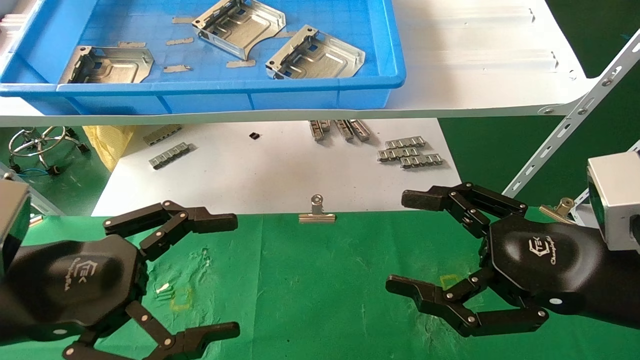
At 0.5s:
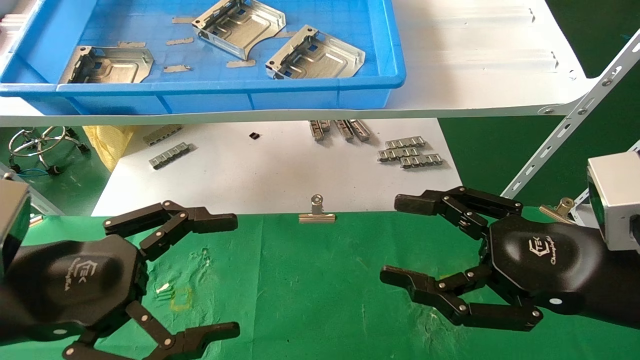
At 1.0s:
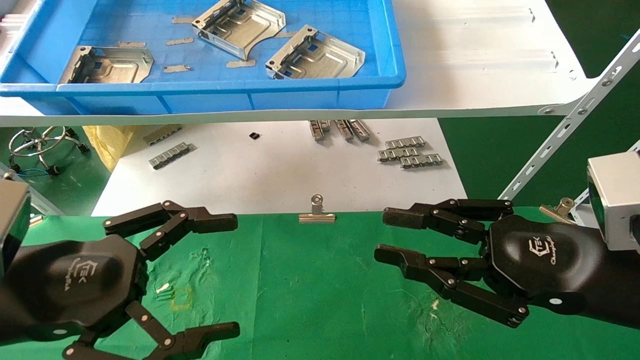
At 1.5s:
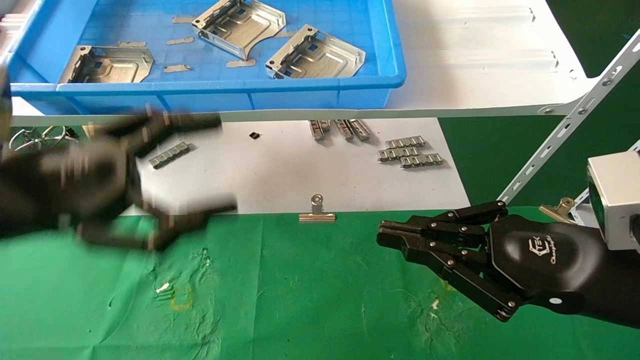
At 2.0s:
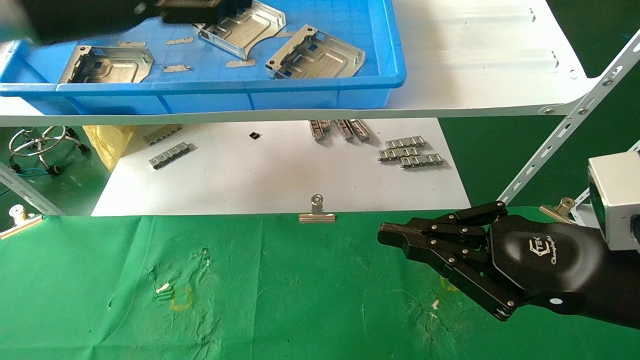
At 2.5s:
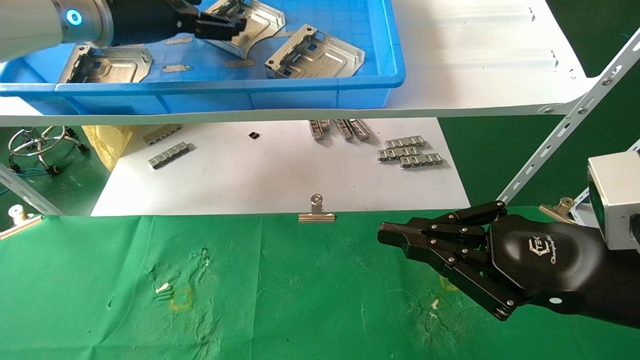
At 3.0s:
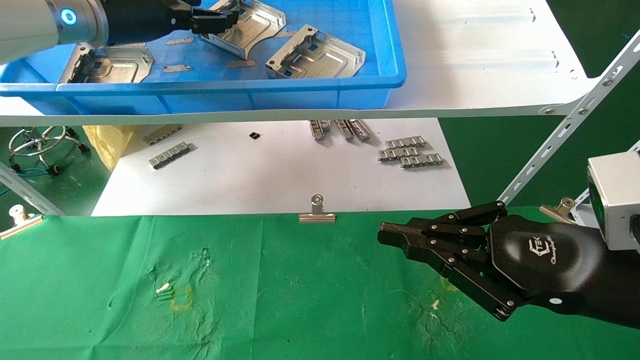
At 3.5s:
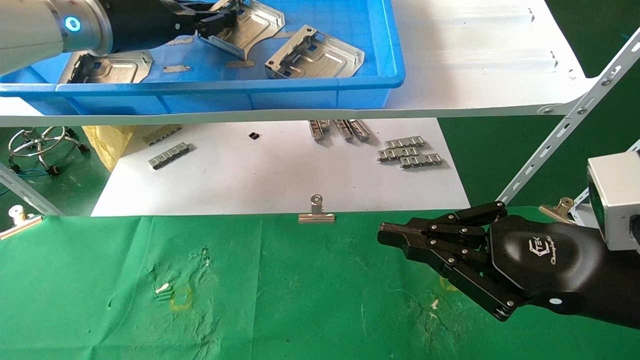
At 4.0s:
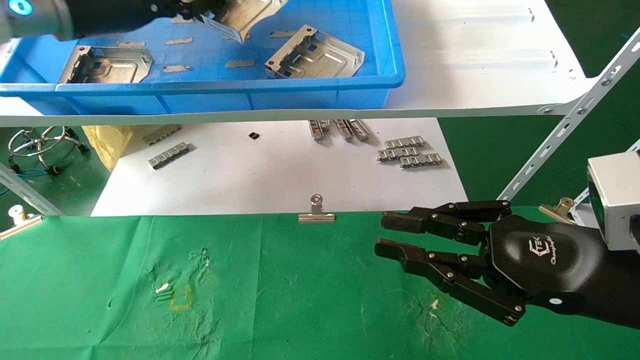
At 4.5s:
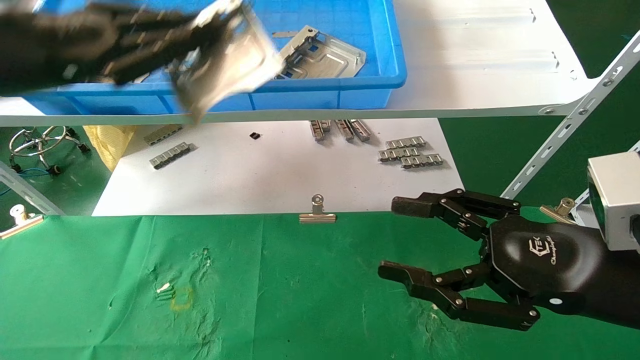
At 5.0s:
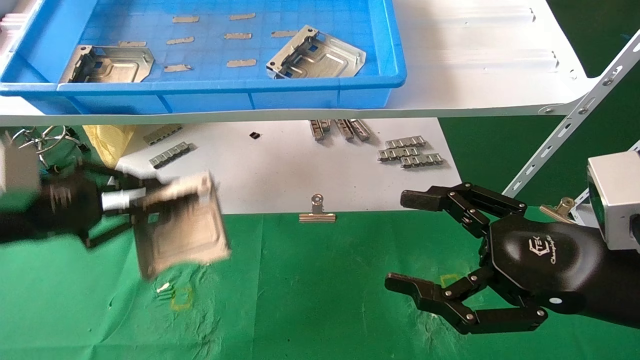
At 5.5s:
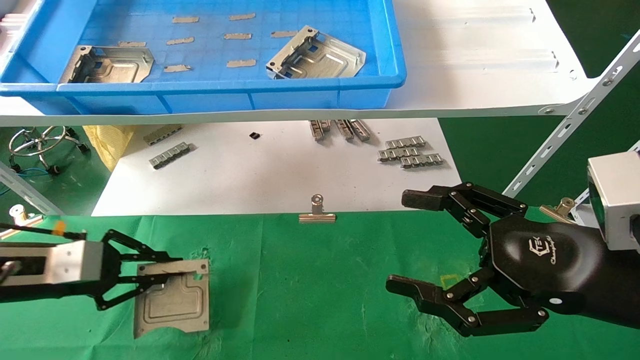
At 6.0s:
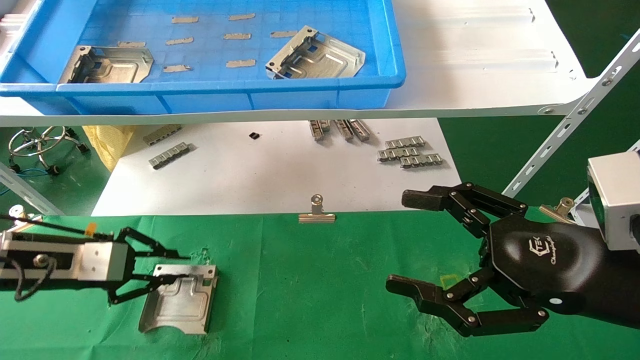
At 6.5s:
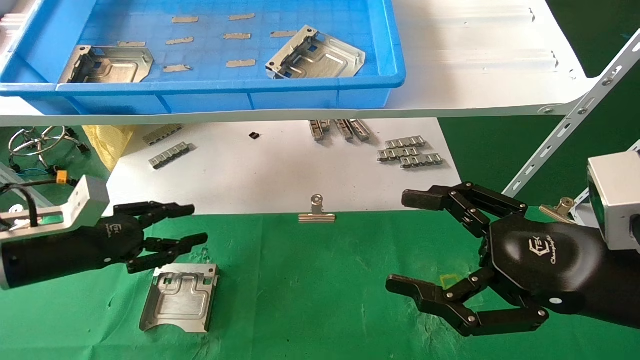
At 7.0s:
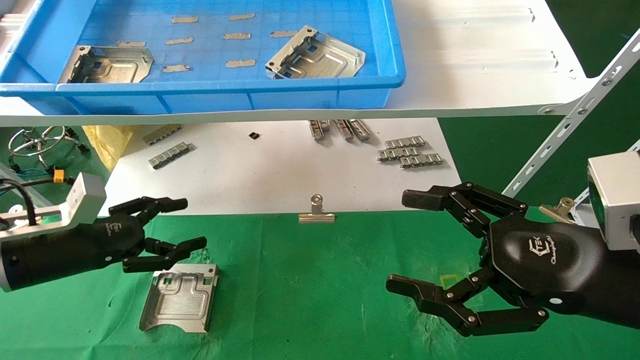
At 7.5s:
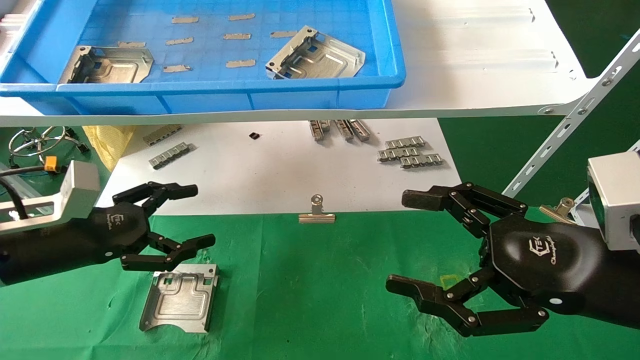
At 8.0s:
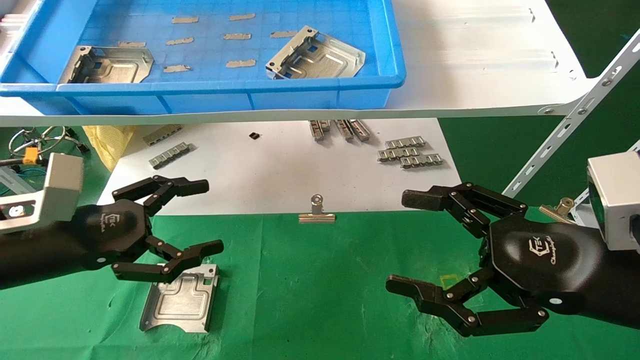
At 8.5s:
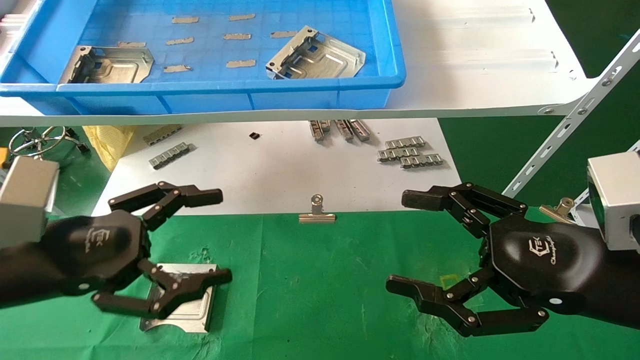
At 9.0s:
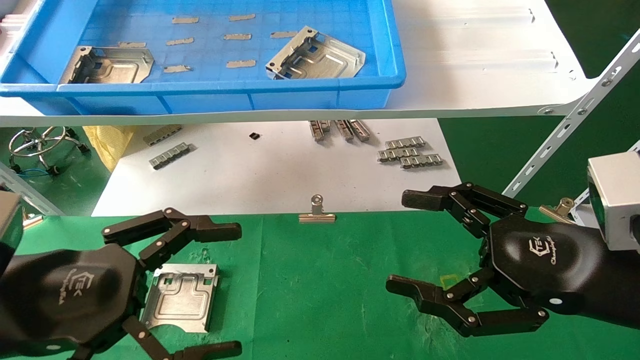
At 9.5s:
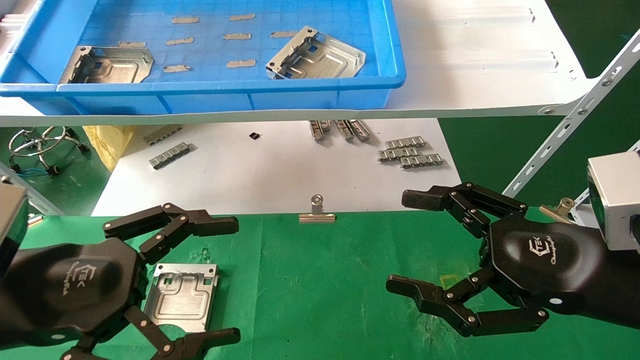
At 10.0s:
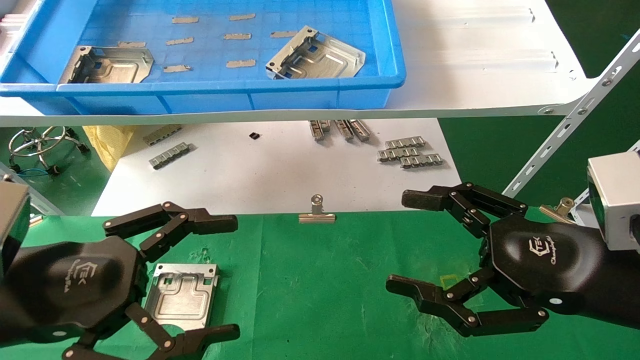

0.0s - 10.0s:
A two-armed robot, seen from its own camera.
Task of the whole recording: use the mechanical arm to pick up the parts and place them on the table.
Step, 1.5s - 3.5s: Pick up the hard drive bracket from the feeding area.
Step, 4.0s - 5.5s: Place the hard drive bracket into the box.
0.0s - 2.0s: The right gripper closes its fingers. Meanwhile the left gripper travels upward and forward by some 25 cm.
2.0s - 4.0s: The left gripper closes up.
4.0s - 6.0s: The right gripper opens its fingers, while the left gripper heads downward, covering approximately 30 cm.
6.0s - 8.0s: The left gripper travels backward and to the right by roughly 10 cm, and opens.
8.0s - 10.0s: The left gripper shifts approximately 10 cm backward.

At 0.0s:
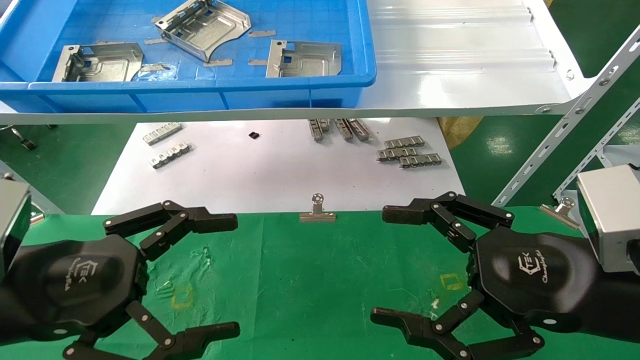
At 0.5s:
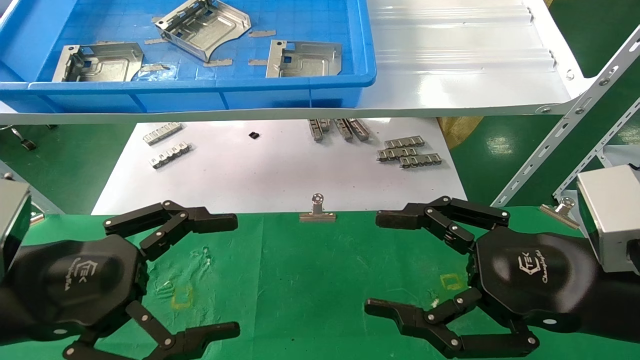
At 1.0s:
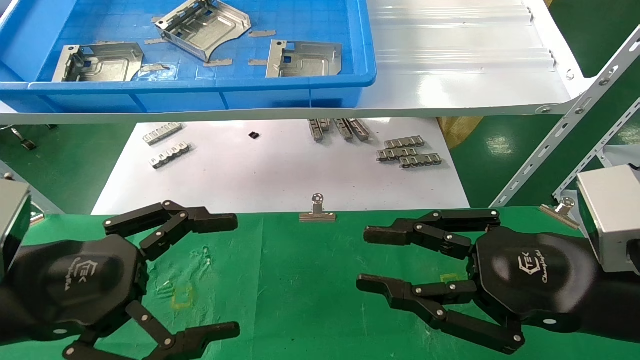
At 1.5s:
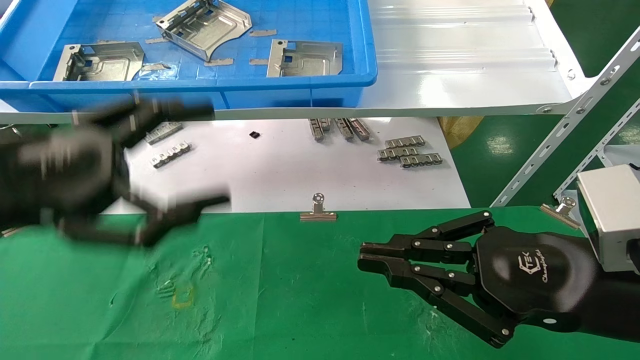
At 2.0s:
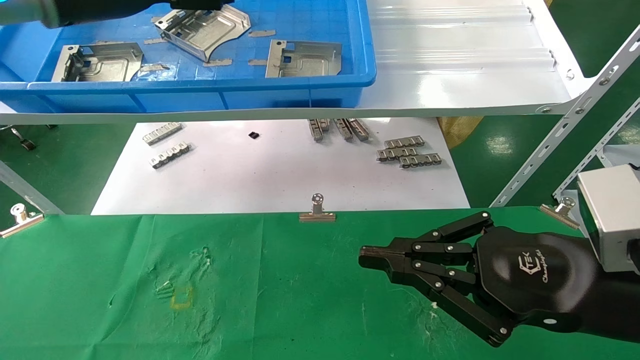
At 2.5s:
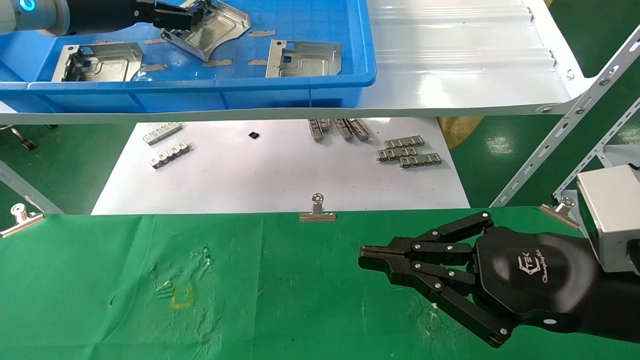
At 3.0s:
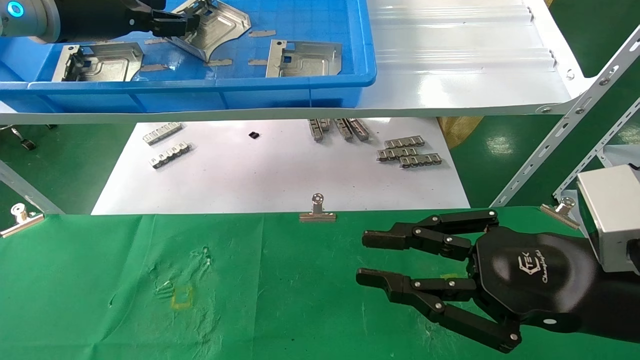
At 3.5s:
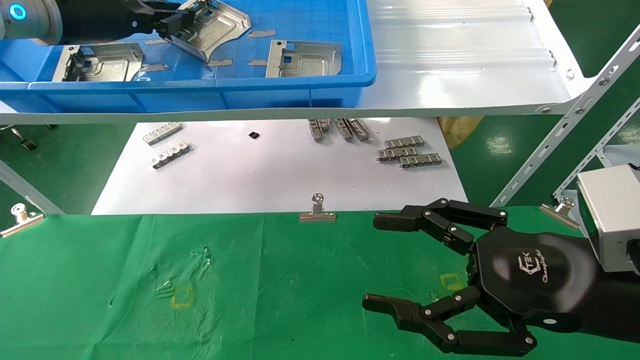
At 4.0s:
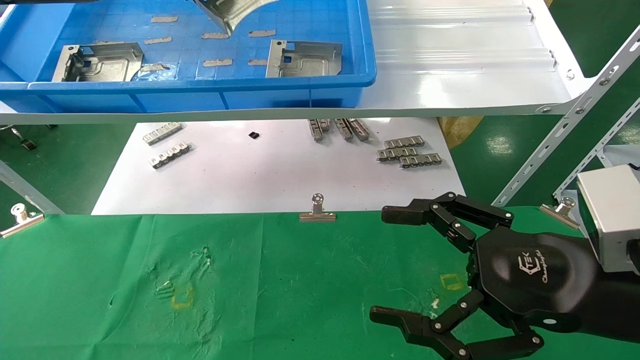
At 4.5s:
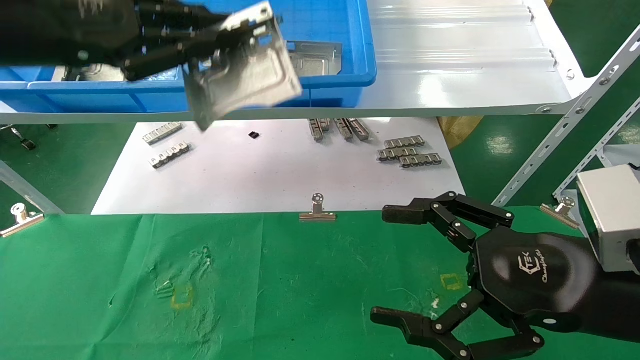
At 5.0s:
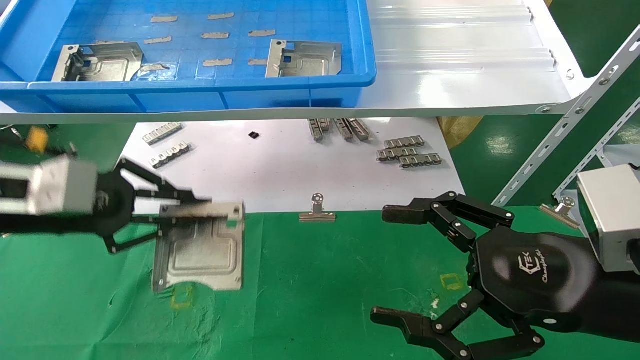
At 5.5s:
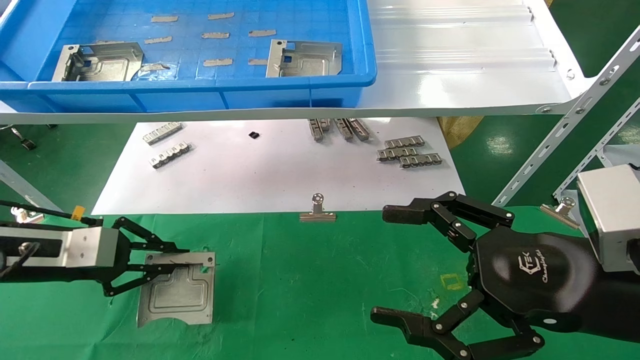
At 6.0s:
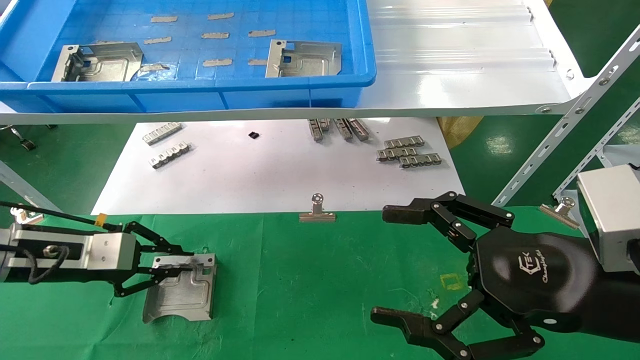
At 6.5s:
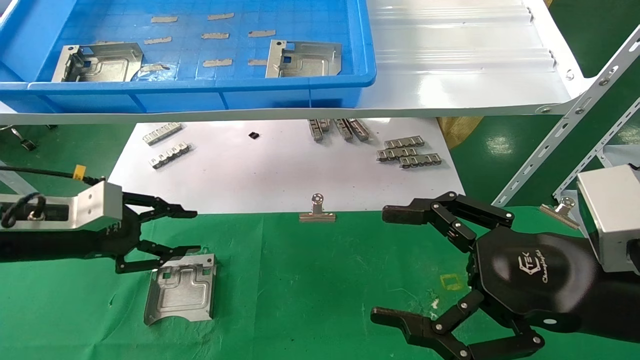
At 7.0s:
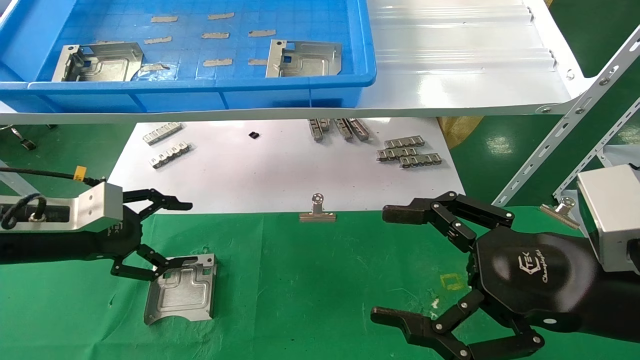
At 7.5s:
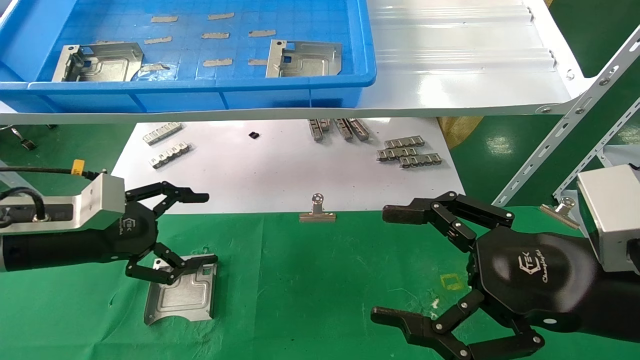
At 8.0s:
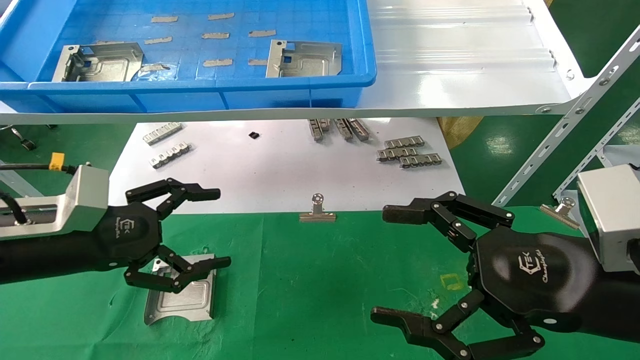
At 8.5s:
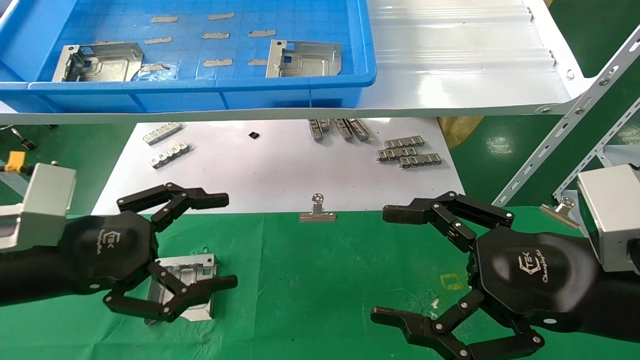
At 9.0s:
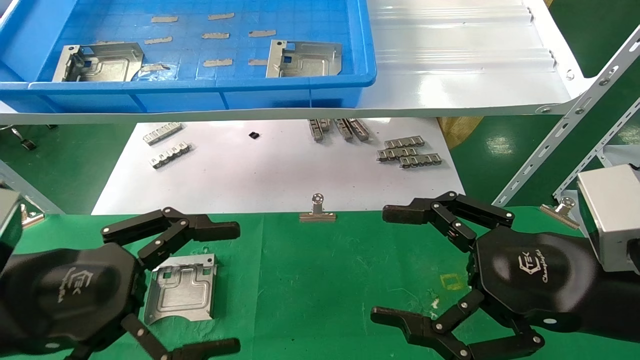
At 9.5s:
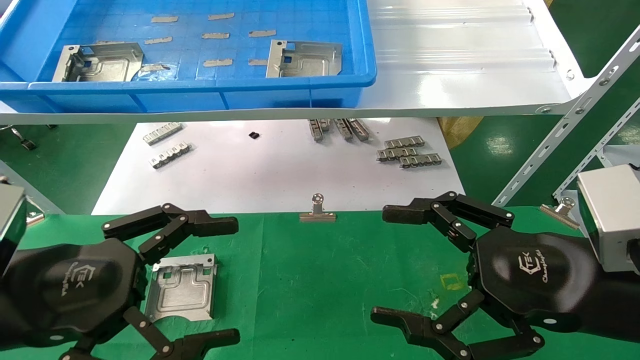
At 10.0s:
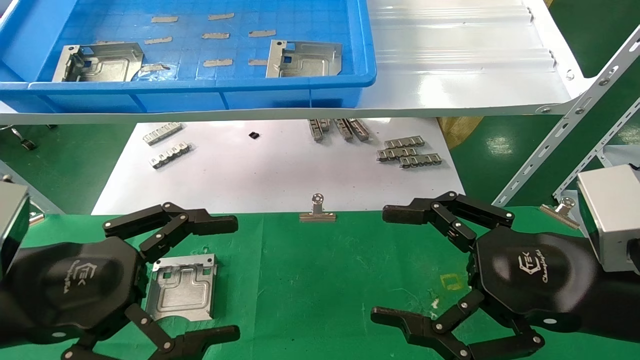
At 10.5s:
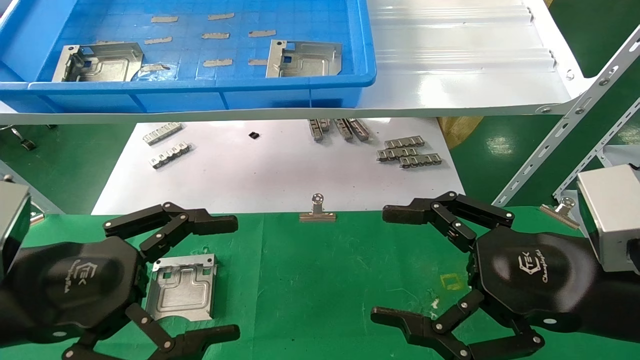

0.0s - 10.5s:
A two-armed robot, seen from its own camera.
Task of the whole recording: use the mechanical arm to pick up the parts and place them on the table.
Step, 2.0s - 3.5s: Pick up the hard drive bracket from the feeding area.
Step, 4.0s - 6.0s: Place the hard drive bracket into the box.
0.0s - 2.0s: The right gripper closes its fingers. Meanwhile the left gripper goes some 30 cm upward and forward.
2.0s - 4.0s: The left gripper closes up. The right gripper opens up.
4.0s - 6.5s: The left gripper moves downward, about 25 cm.
6.5s - 8.5s: The left gripper shifts approximately 10 cm backward and to the right, and opens its fingers.
8.5s - 10.5s: The left gripper changes place by approximately 5 cm.
